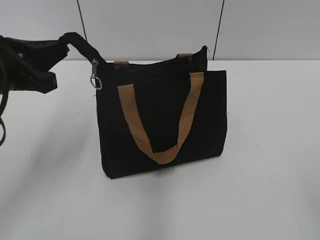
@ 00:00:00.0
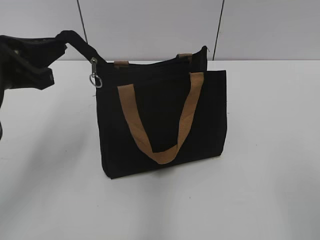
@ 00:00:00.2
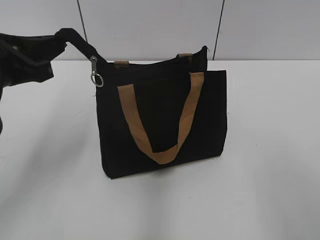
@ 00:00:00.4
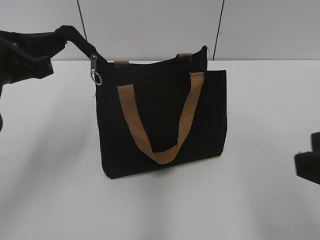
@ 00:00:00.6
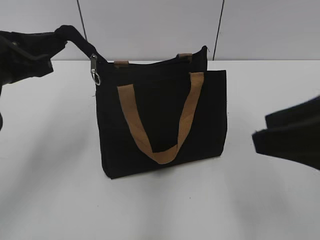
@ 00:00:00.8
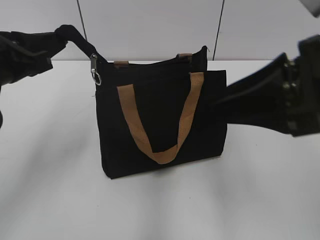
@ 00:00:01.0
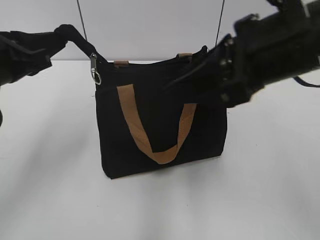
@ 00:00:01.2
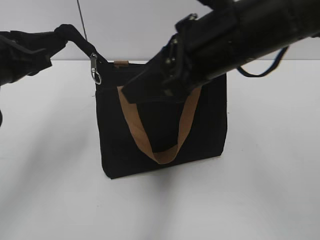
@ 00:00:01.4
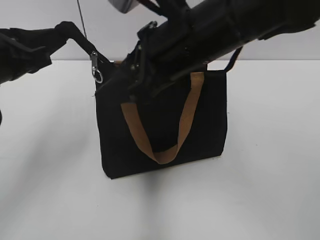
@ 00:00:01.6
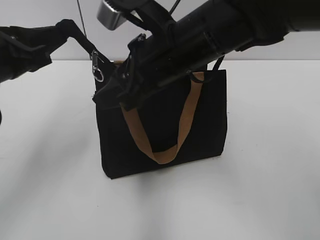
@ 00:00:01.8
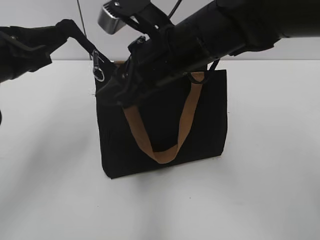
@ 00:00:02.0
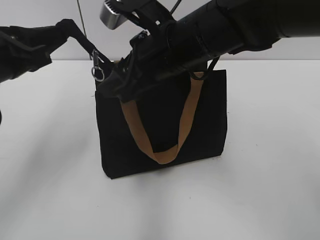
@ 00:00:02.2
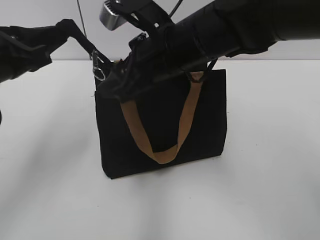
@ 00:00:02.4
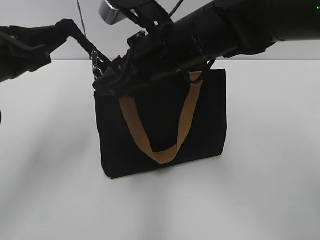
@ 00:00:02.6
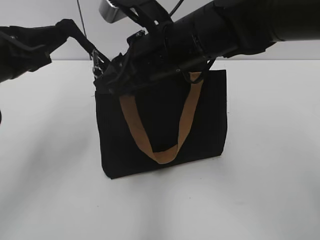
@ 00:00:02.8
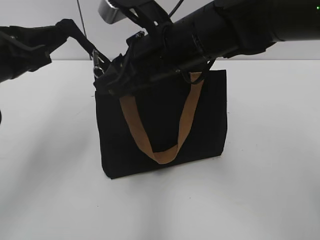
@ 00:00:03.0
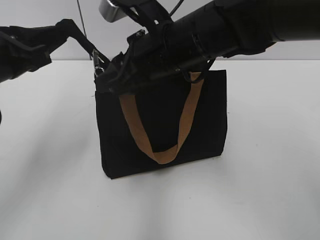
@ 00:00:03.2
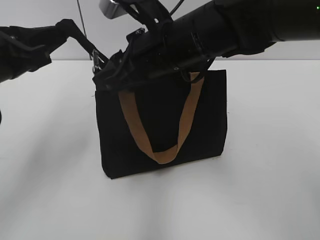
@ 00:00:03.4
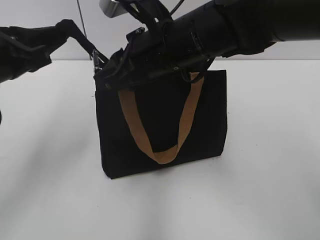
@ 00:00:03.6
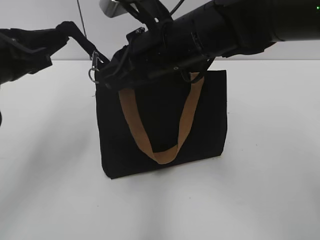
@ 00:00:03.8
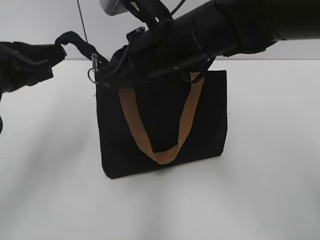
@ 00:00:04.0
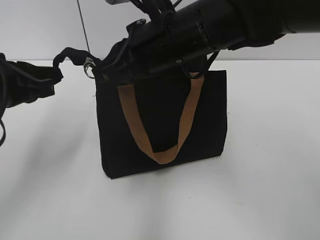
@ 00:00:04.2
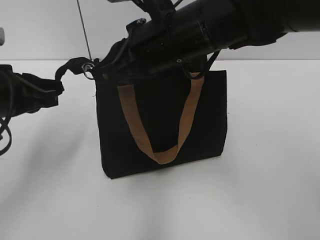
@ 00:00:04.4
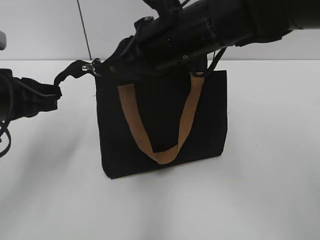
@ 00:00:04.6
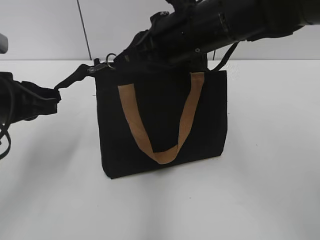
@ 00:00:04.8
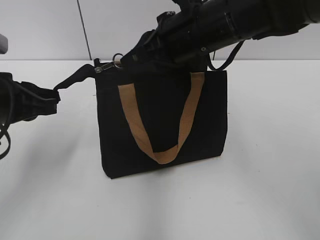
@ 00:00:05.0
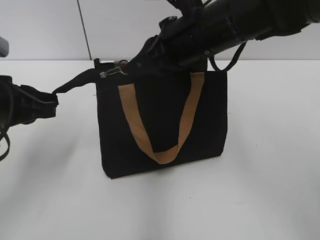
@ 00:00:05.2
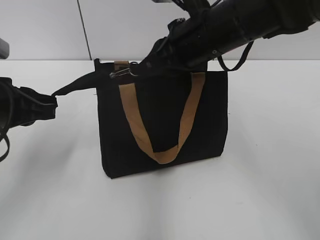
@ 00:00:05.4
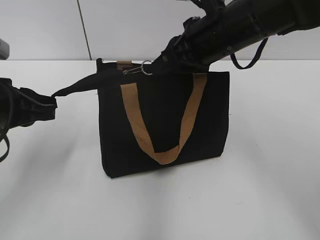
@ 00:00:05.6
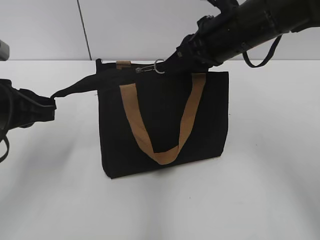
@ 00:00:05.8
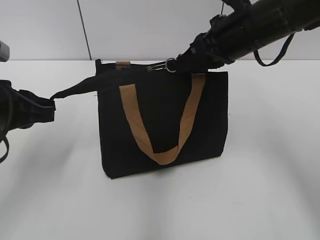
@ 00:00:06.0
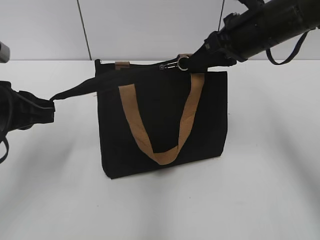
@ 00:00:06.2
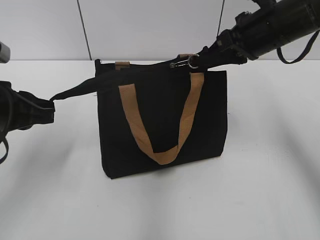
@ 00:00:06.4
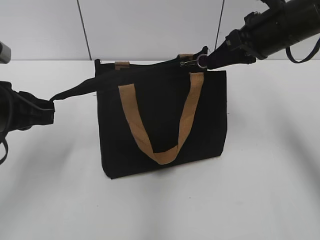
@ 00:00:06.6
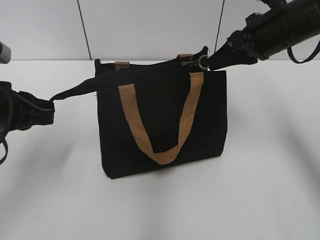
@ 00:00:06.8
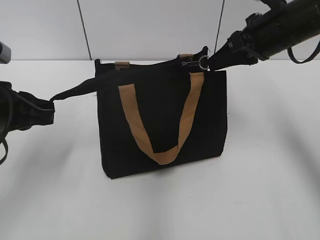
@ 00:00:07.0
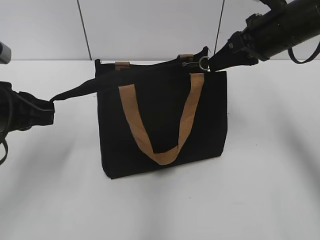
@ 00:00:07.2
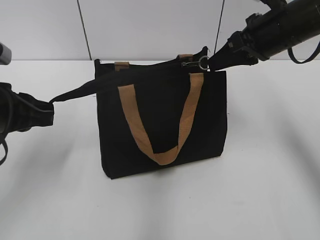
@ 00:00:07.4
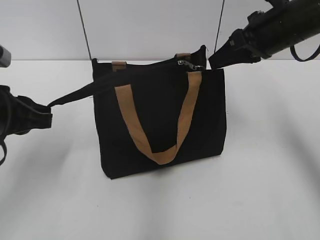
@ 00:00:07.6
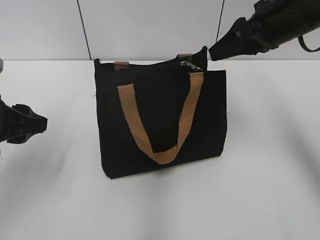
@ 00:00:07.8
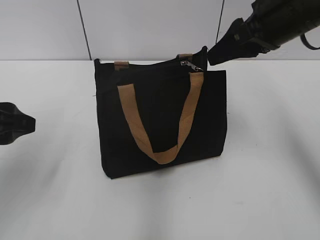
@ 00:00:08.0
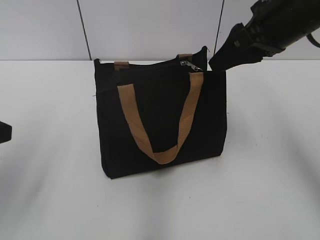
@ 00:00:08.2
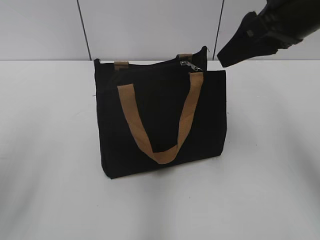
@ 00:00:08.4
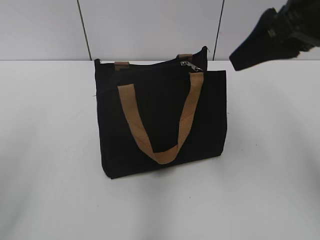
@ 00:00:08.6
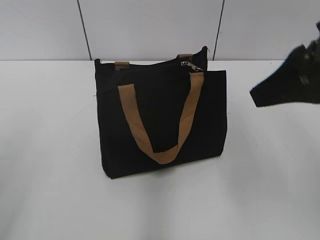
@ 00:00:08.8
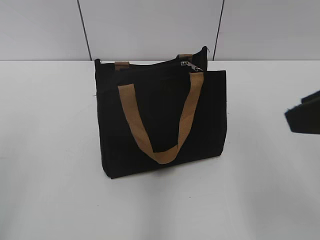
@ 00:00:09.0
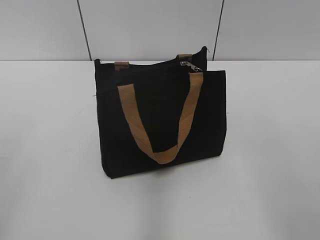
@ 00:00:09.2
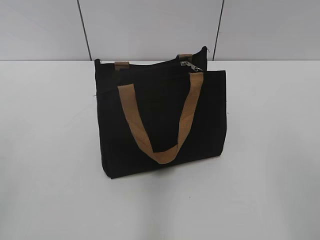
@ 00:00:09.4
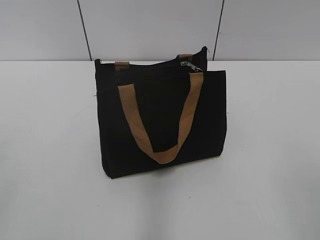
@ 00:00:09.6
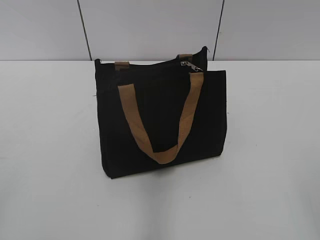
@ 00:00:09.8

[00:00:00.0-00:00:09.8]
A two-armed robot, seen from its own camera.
Step, 00:00:00.0 to 00:00:07.4: Zip up the bag with your right hand.
00:00:00.0 to 00:00:01.4: The right gripper goes some 30 cm forward and to the left.
00:00:01.4 to 00:00:02.8: The right gripper is displaced to the left, forward and downward by about 10 cm.
00:00:02.8 to 00:00:04.2: The right gripper closes its fingers.
00:00:04.2 to 00:00:05.6: The right gripper is displaced to the right by some 5 cm.
00:00:05.6 to 00:00:07.0: The right gripper moves to the right, roughly 10 cm.
00:00:07.0 to 00:00:08.4: The left gripper moves backward, some 10 cm, and opens. The right gripper shifts roughly 10 cm upward and backward, and opens.
00:00:08.4 to 00:00:09.8: The right gripper heads backward, covering approximately 30 cm.
